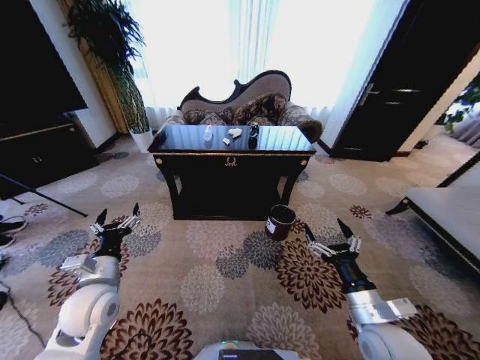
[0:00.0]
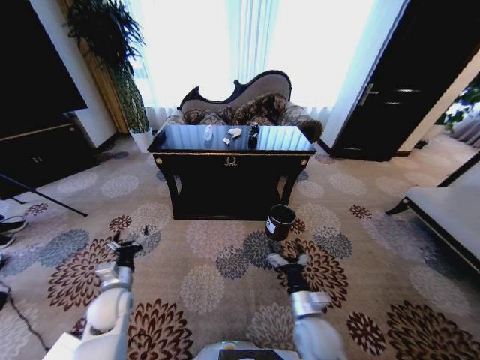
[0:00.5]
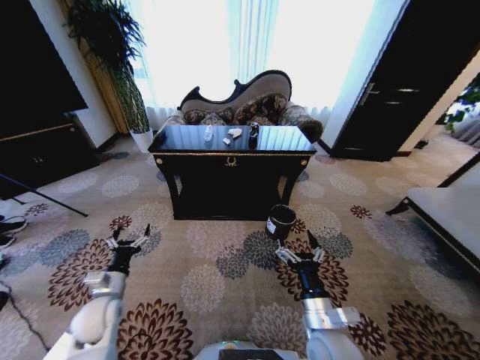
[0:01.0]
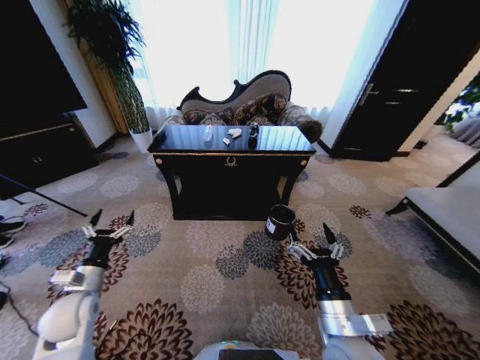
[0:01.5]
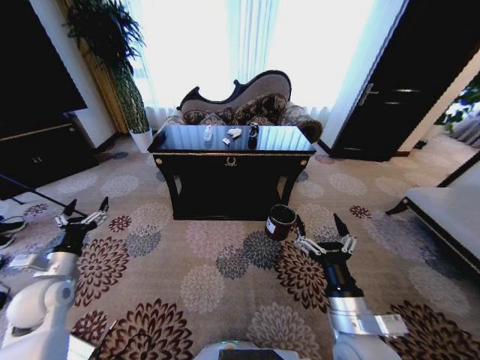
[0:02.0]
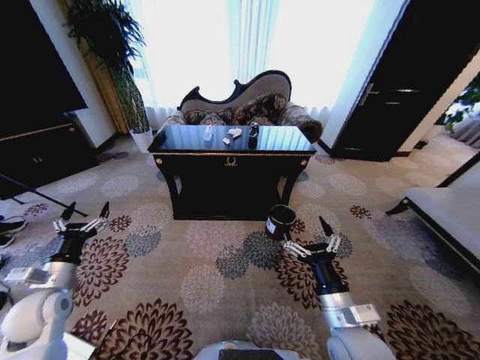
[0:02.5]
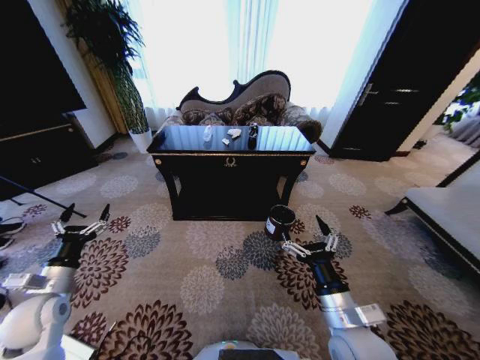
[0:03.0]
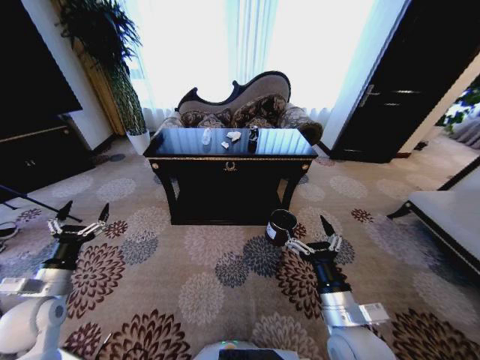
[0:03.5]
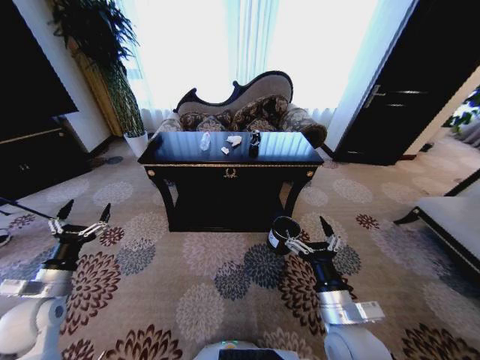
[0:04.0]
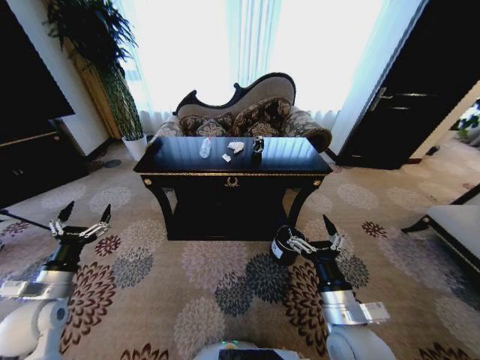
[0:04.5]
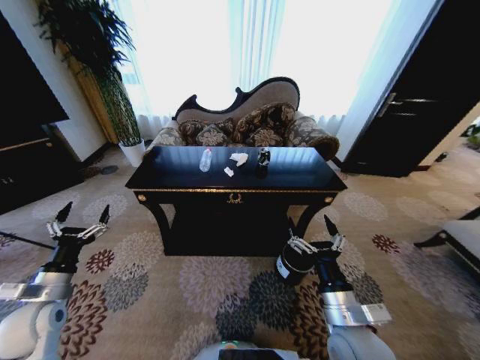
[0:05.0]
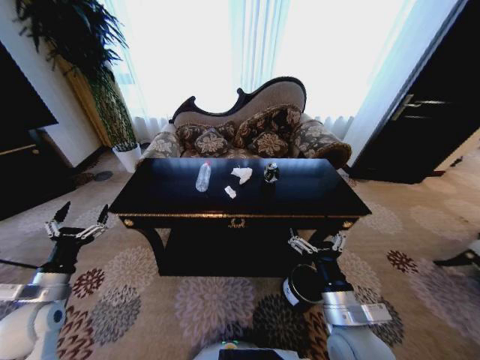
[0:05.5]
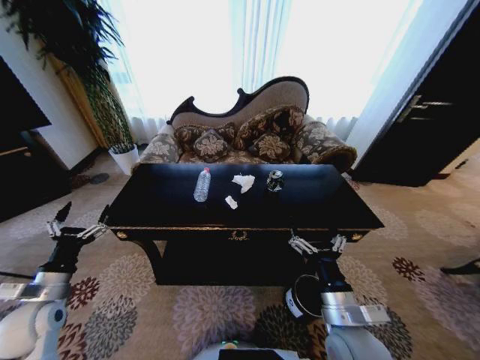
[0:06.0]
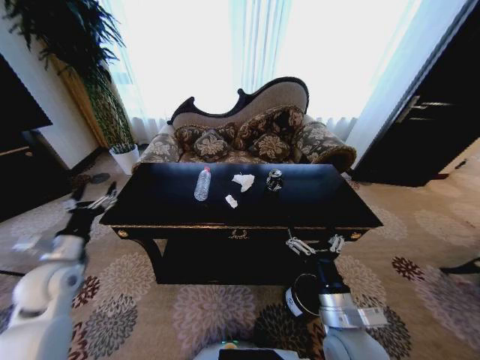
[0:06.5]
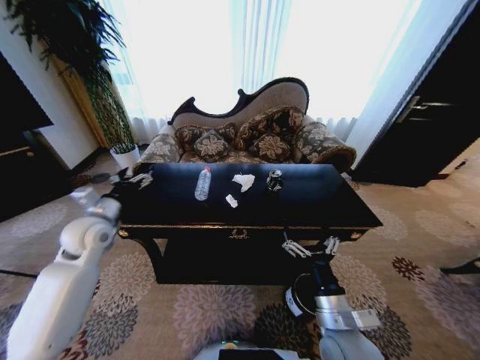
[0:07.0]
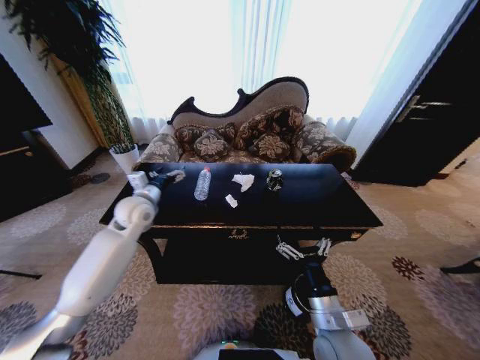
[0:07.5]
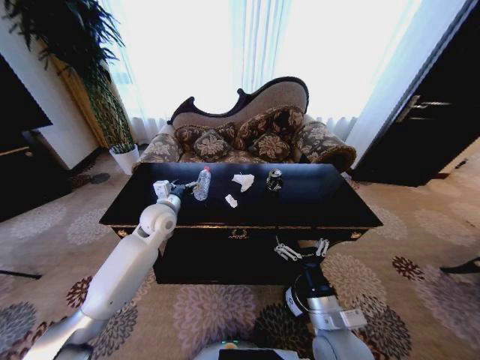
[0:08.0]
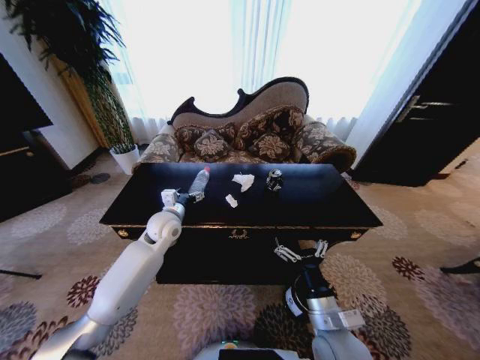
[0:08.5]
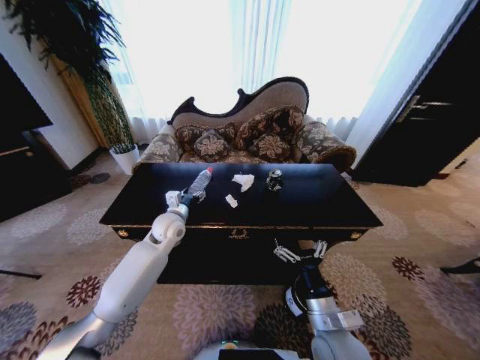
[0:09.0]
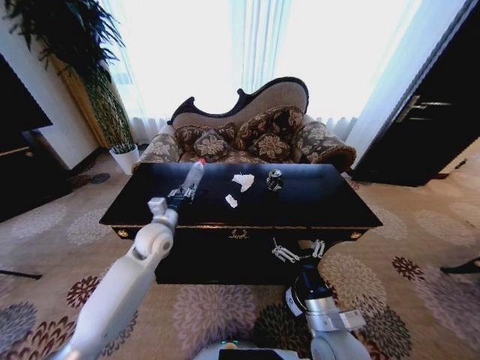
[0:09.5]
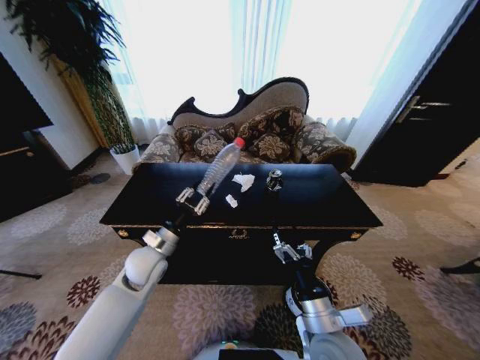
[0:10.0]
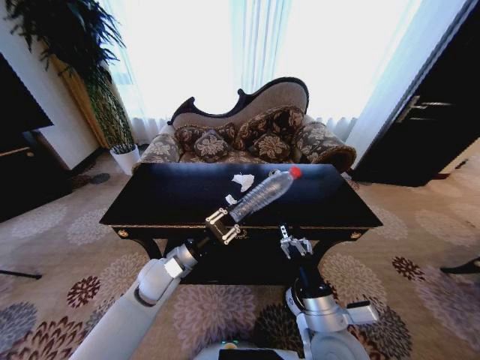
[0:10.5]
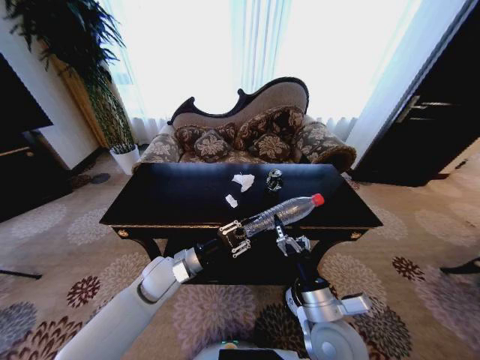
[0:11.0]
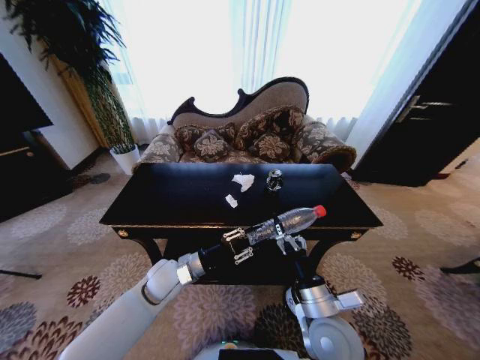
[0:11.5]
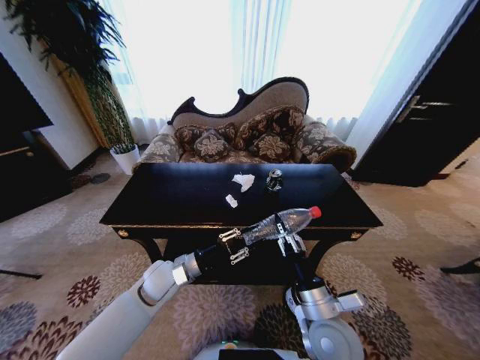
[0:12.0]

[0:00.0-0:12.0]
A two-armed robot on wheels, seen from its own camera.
Task of the whole recording: Move to the front of the table and place the trash on the table into the trash bin.
0:06.0 to 0:08.0: The left gripper goes some 30 cm forward and to the right.
0:08.0 to 0:10.0: The left gripper shifts roughly 10 cm backward and downward, and closes.
0:10.0 to 0:12.0: The right gripper closes up, while the left gripper shifts by roughly 5 cm.

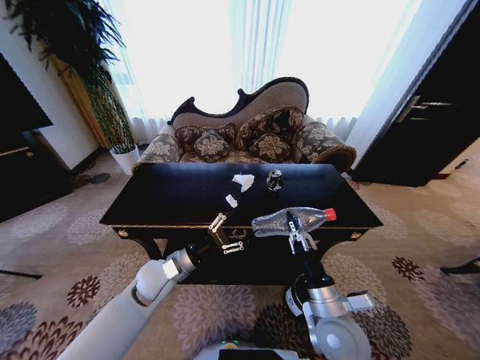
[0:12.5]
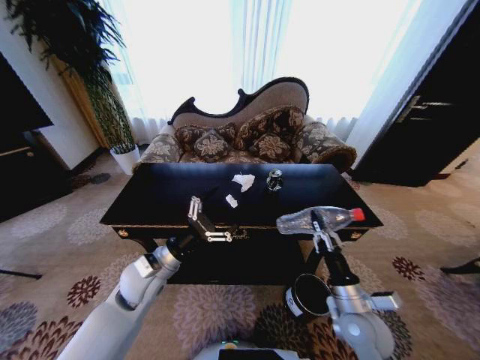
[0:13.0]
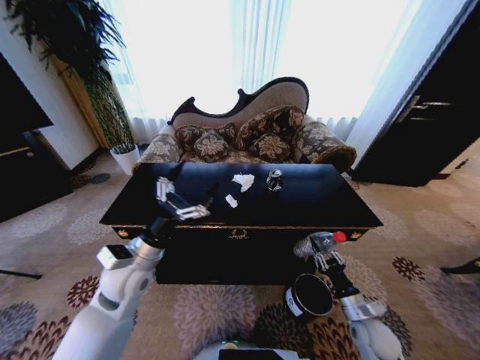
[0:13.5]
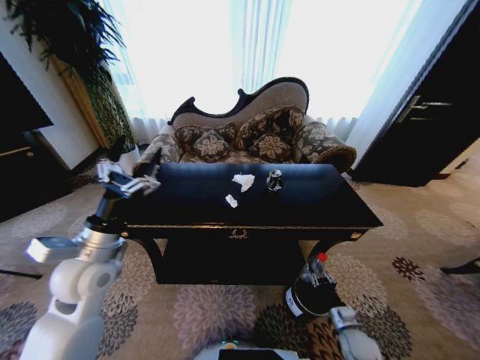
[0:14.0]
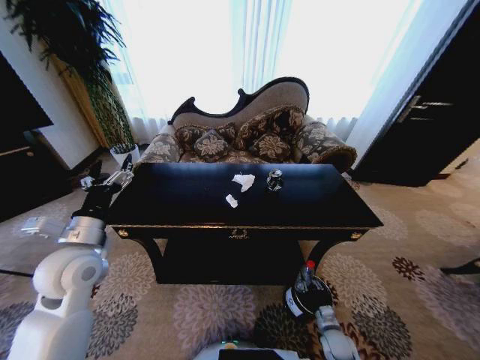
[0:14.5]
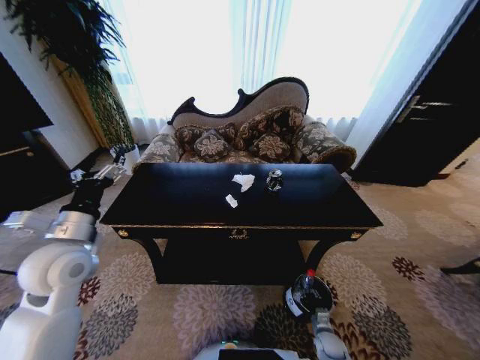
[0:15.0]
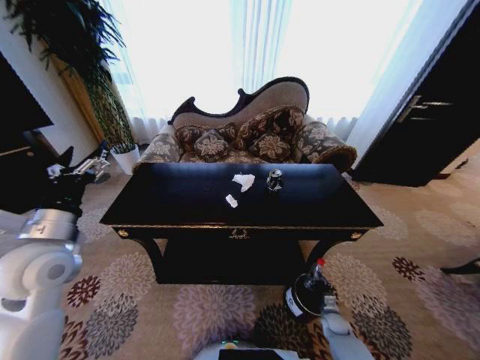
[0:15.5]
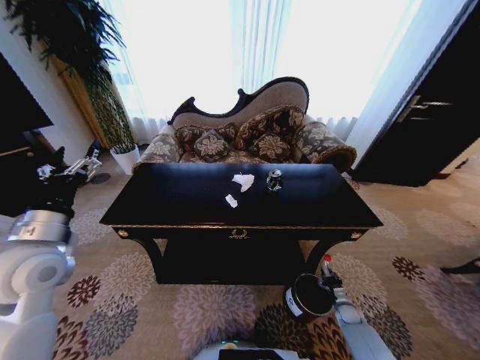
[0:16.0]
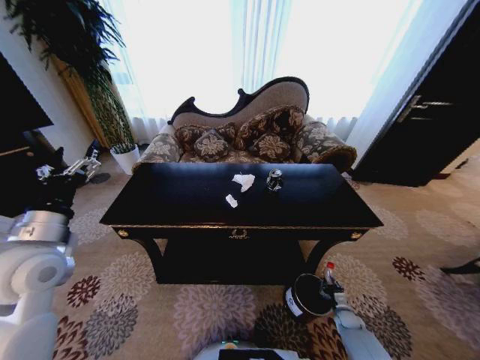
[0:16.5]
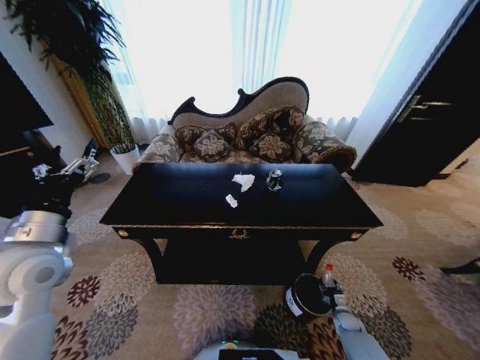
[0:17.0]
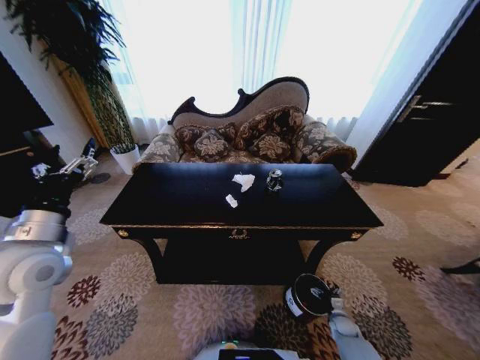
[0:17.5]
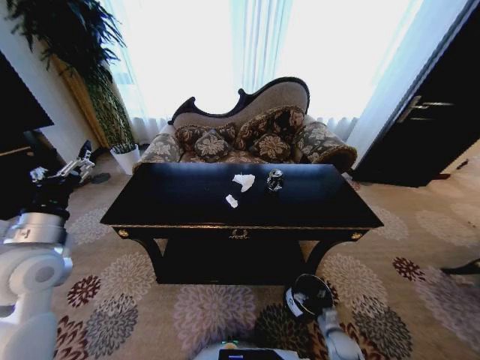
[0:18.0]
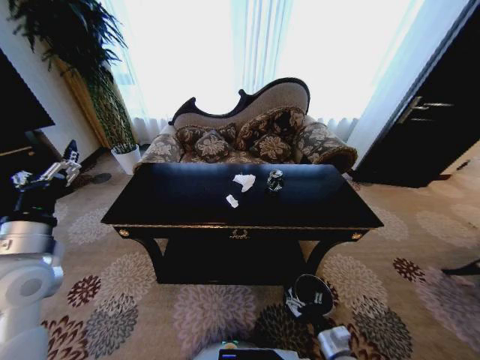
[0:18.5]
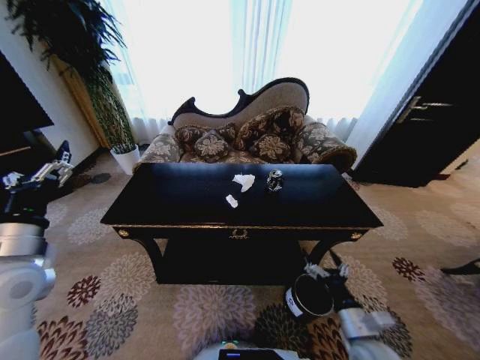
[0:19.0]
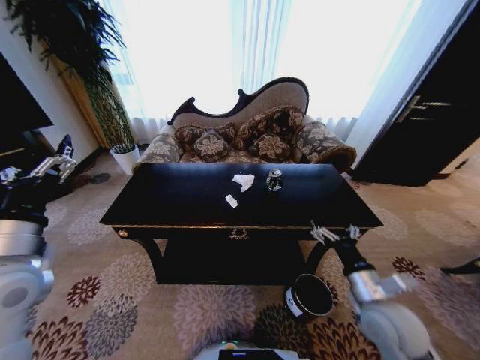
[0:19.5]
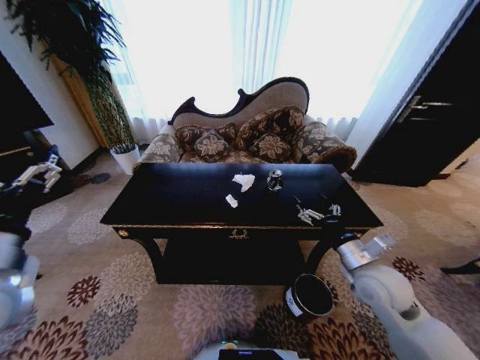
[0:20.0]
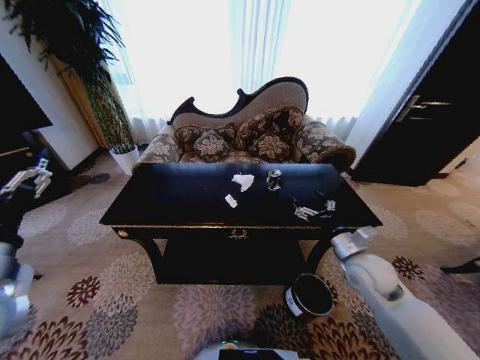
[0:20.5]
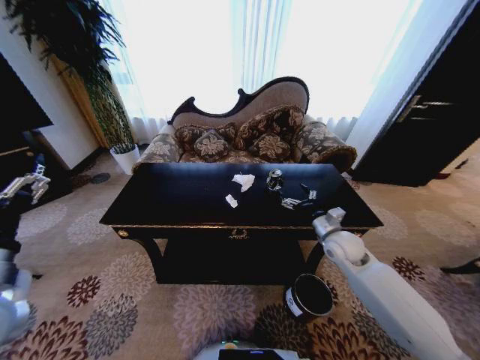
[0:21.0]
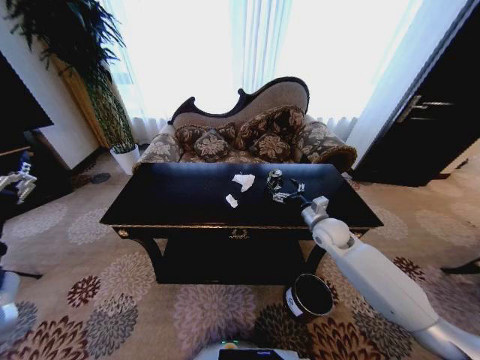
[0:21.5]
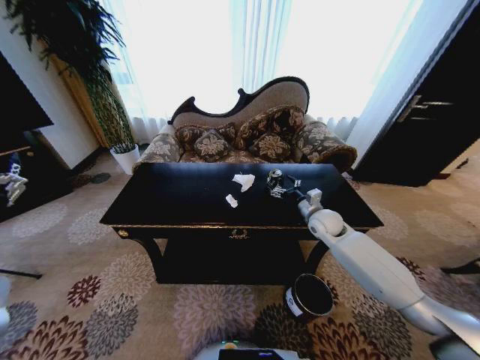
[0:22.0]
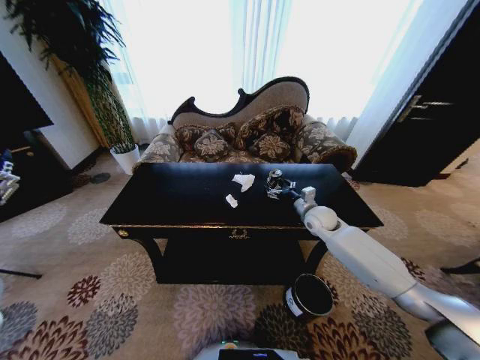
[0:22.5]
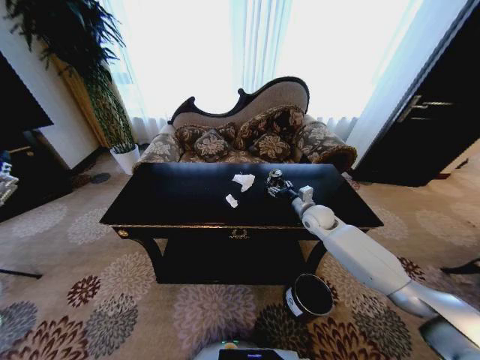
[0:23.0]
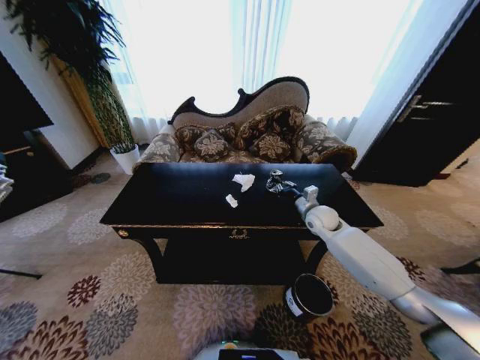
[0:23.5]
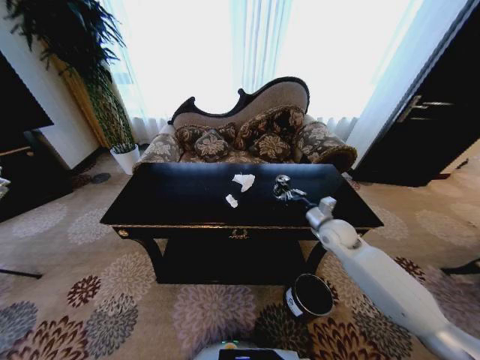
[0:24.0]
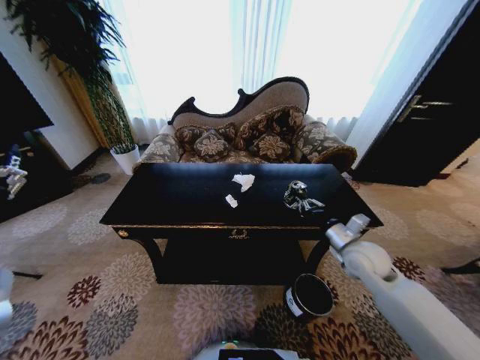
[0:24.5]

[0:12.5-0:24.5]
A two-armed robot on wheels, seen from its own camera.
Task of the whole recording: Move to the front of the table and place the trash on the table into the trash bin.
0:12.5 to 0:14.5: The left gripper heads to the left and upward, covering roughly 20 cm, and opens up. The right gripper heads downward and to the right, covering roughly 30 cm.
0:14.5 to 0:16.5: The left gripper changes place by approximately 5 cm. The right gripper shifts some 15 cm to the right, forward and downward.
0:16.5 to 0:18.5: The right gripper heads to the left, upward and backward, covering some 25 cm, and opens up.
0:18.5 to 0:20.5: The left gripper moves backward, some 5 cm. The right gripper shifts approximately 30 cm upward and forward.
0:20.5 to 0:22.5: The right gripper travels forward by about 20 cm.
0:22.5 to 0:24.5: The right gripper moves backward, some 15 cm, and closes its fingers.

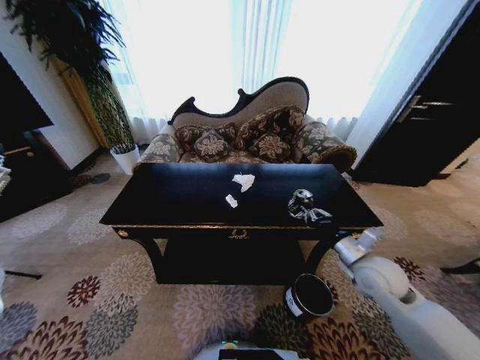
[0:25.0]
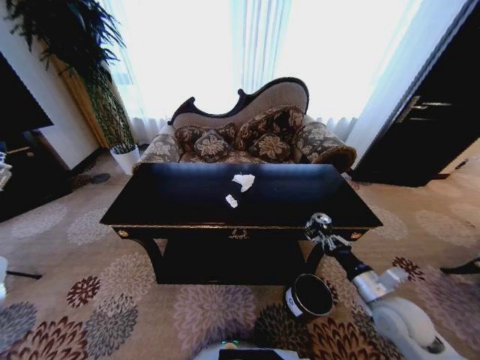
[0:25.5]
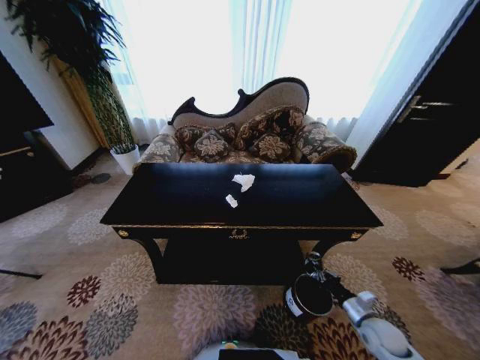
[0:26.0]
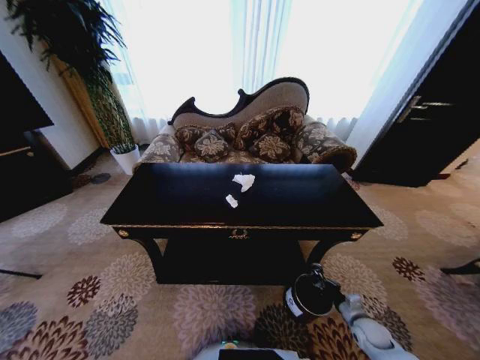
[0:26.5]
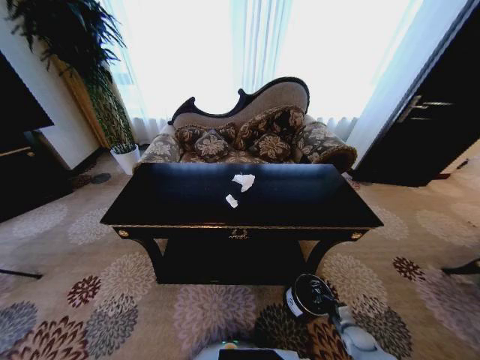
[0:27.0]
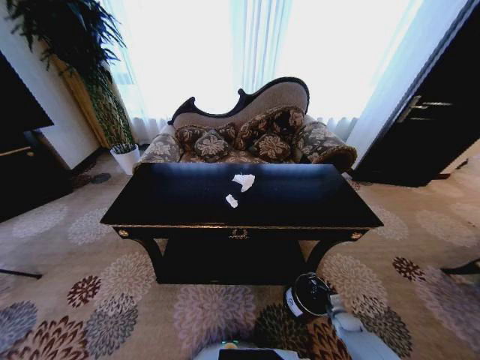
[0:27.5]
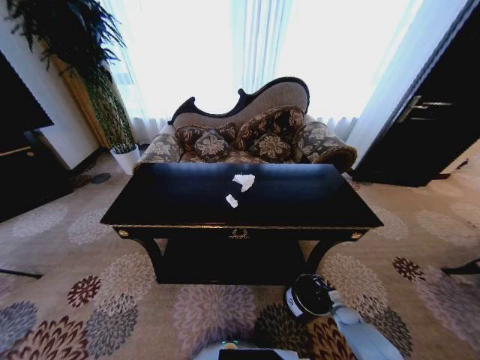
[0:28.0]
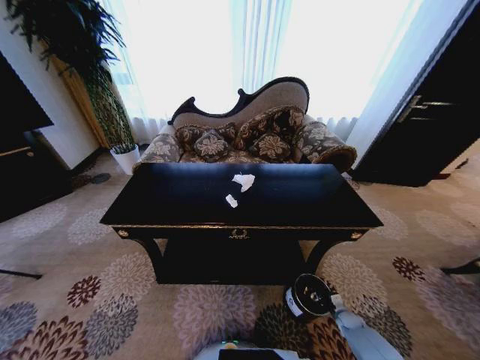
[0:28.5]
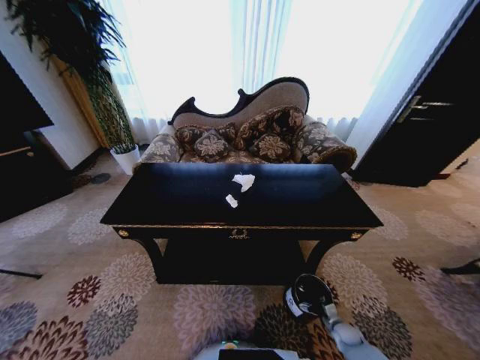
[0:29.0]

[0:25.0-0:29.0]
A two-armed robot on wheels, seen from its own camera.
Task of the whole recording: Move to the front of the table and place the trash on the table into the trash bin.
0:25.0 to 0:27.0: The right gripper goes some 35 cm downward.
0:27.0 to 0:29.0: The right gripper opens up.
